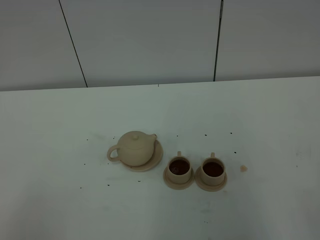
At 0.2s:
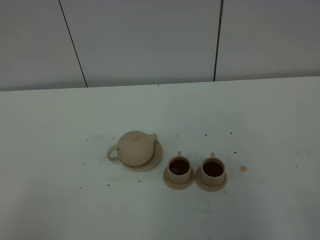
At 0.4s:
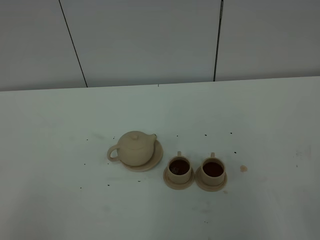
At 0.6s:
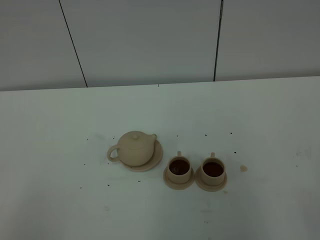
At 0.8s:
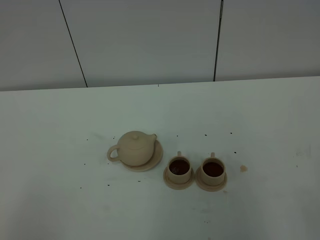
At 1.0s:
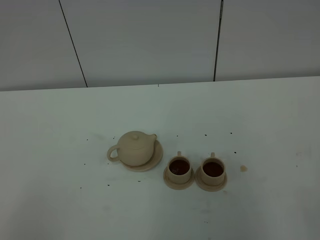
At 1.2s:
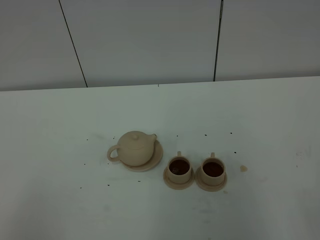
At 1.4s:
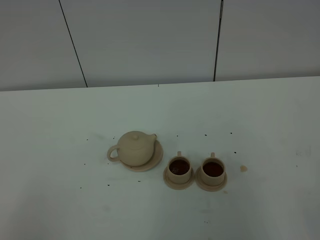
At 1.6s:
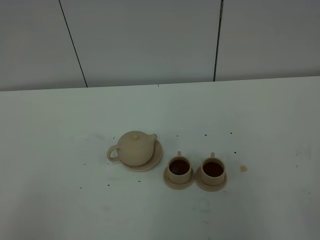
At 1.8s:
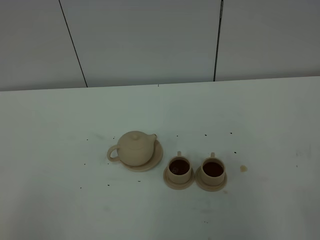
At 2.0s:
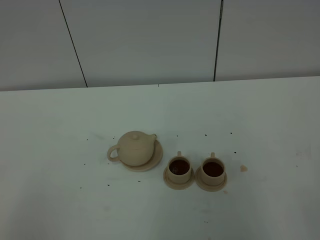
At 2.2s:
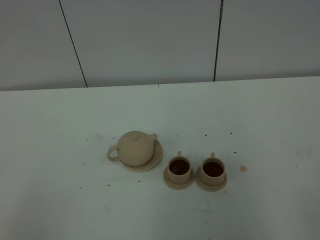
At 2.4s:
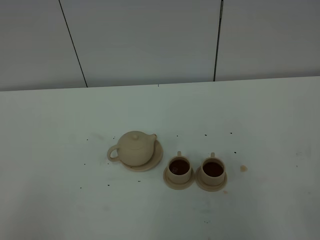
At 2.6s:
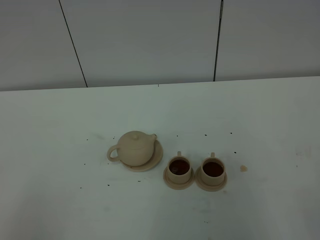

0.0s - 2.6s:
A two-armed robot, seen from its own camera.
Task of the whole recording: grasp the brown teapot and pour the tea into the two brown teacups one by one, put the brown teapot back in its original place.
0.0s - 2.6s: The two grippers keep their place.

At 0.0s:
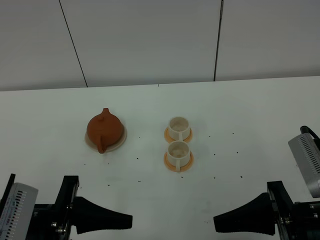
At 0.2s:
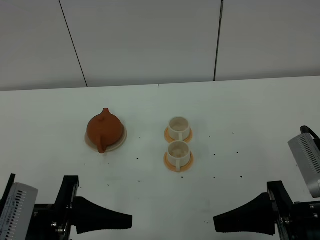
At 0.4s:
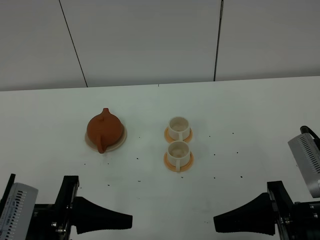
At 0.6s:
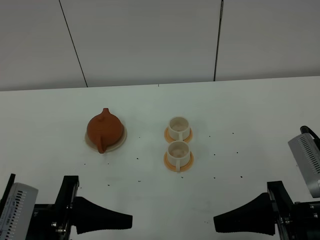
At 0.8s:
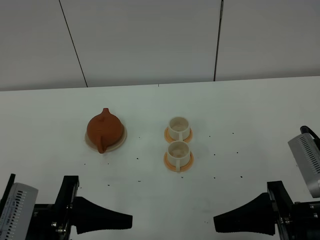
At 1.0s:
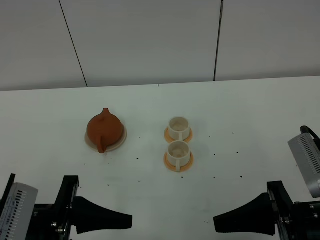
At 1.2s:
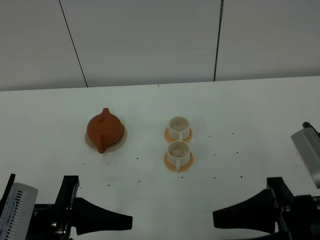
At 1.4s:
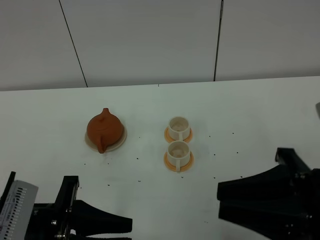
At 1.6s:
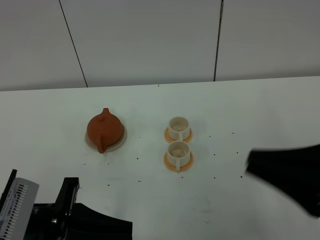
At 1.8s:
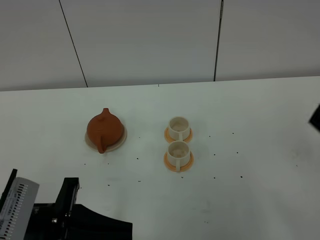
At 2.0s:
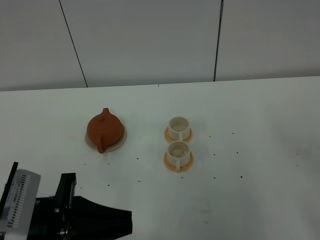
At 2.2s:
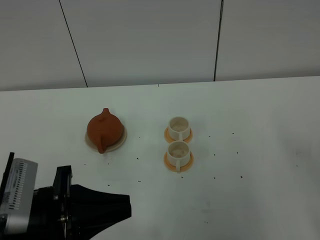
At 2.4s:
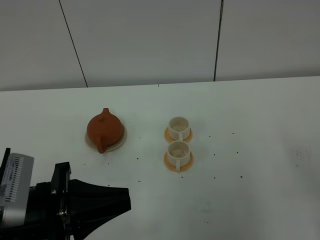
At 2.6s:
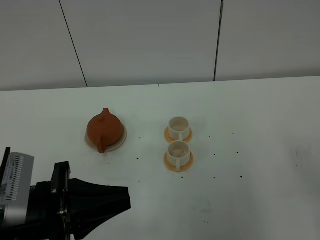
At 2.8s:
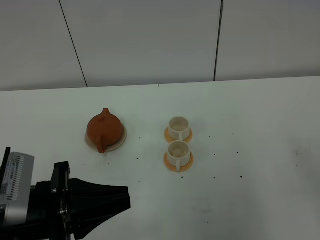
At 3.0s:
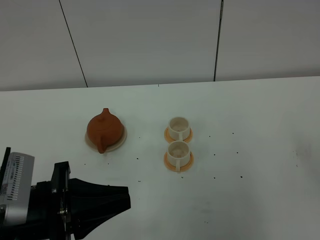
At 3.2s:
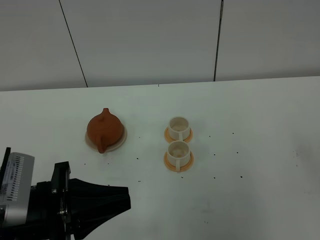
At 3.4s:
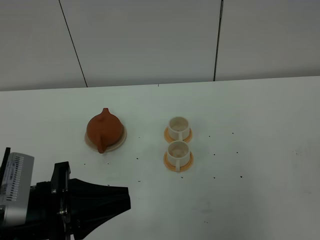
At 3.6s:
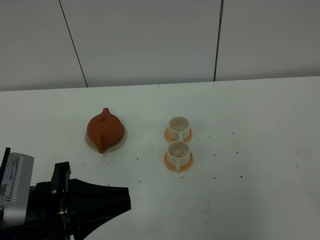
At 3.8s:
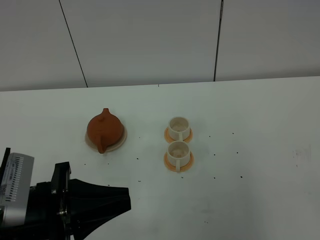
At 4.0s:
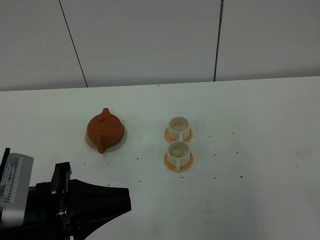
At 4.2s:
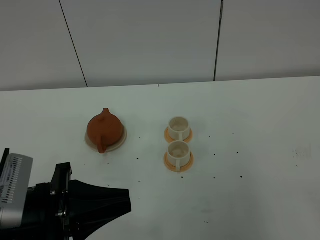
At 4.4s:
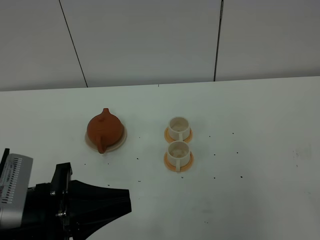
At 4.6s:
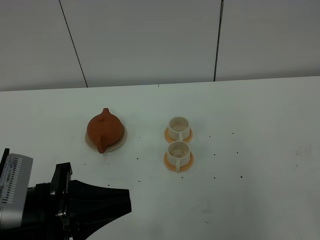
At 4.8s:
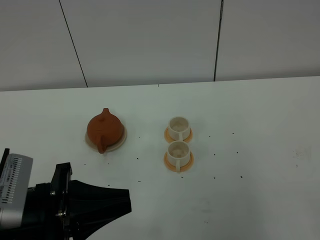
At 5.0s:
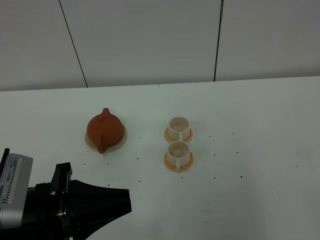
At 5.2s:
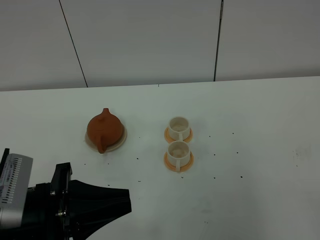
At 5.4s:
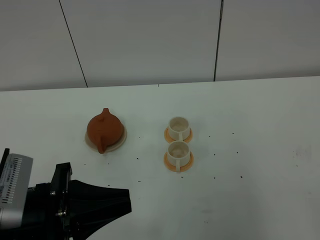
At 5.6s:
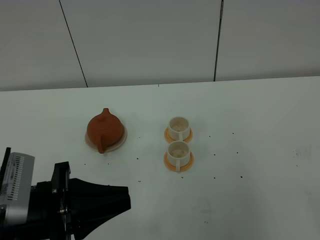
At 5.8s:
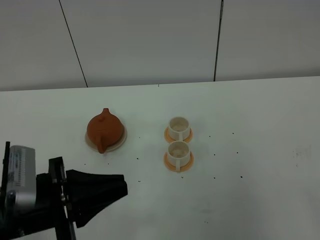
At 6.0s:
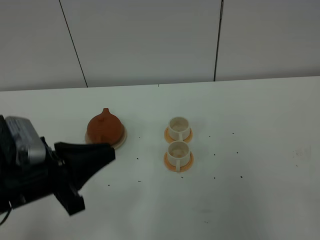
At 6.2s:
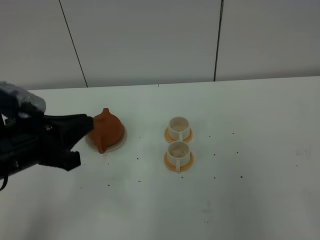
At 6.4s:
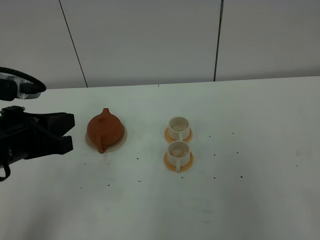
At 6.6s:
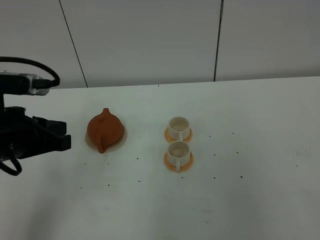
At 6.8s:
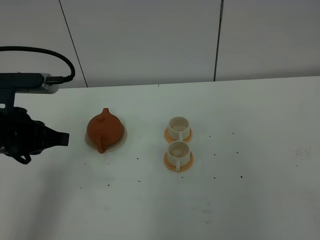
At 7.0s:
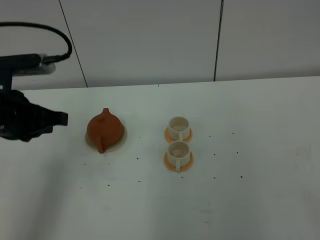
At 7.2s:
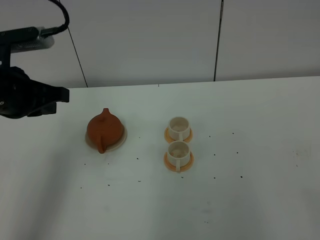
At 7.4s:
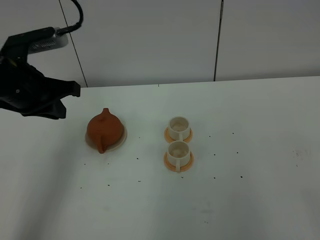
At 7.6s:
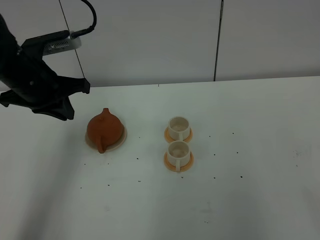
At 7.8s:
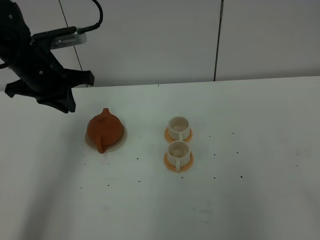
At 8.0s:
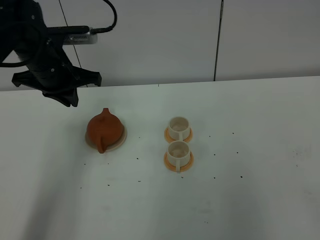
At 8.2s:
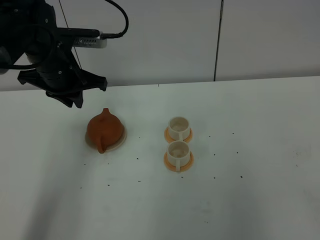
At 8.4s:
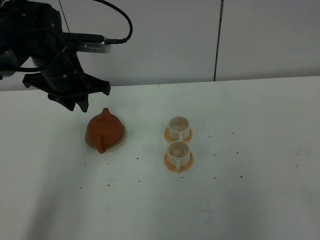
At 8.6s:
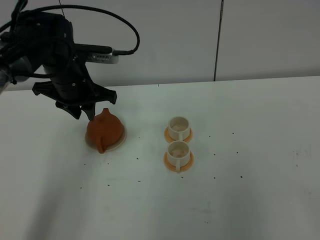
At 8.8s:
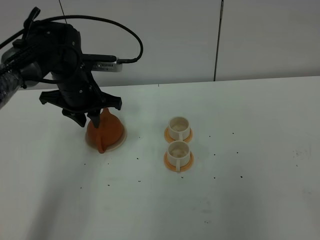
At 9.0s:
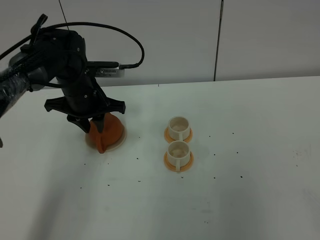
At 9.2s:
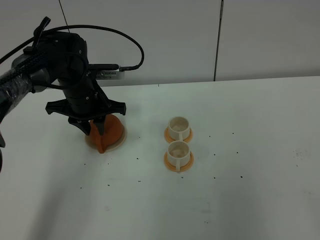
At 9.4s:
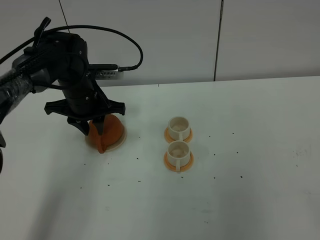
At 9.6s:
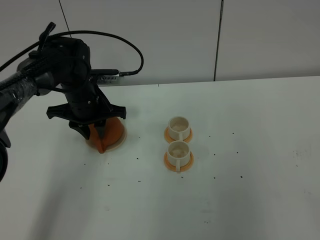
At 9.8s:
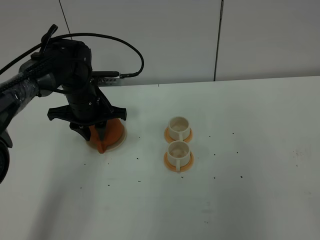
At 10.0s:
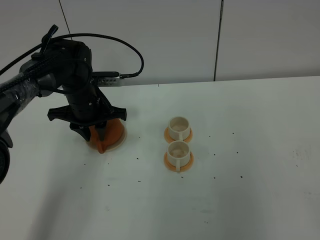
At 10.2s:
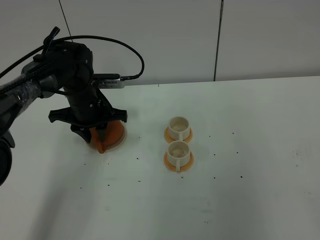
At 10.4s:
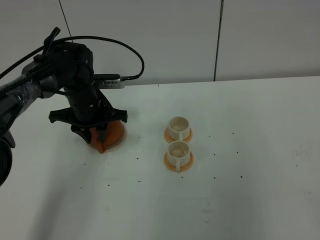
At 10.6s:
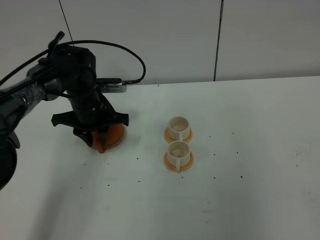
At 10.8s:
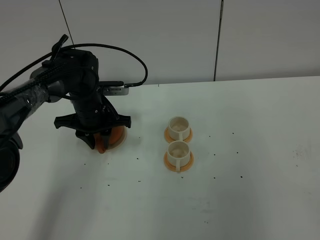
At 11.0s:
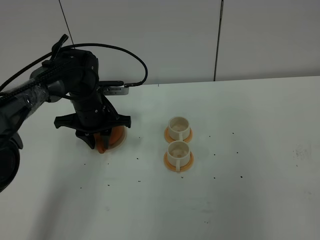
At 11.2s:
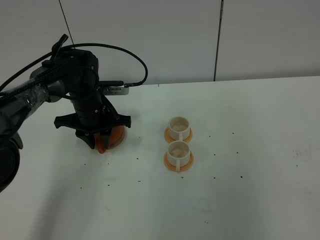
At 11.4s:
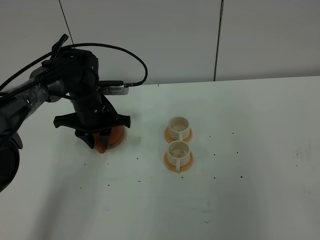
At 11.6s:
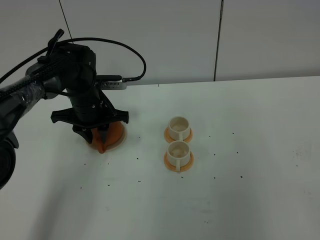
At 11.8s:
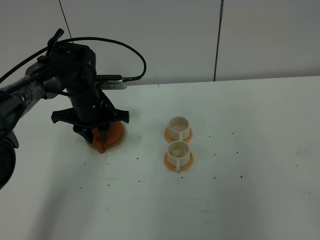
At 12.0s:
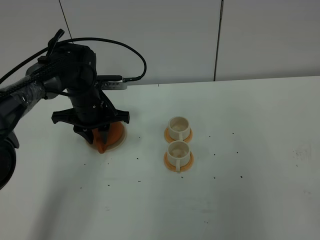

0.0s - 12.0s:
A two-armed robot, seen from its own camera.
Task of the whole recording: grasp the brown teapot and pour the tea into the two white teacups one by one, put the brown teapot back in its original place.
0.0s - 1.6s: The left gripper closes. The right gripper travels upward by approximately 10 cm, and closes up.
1.6s - 3.0s: The right gripper goes about 10 cm to the right and backward.
4.4s - 6.0s: The left gripper changes place by about 5 cm.
6.0s - 7.6s: The left gripper moves forward, about 20 cm.
7.6s - 9.0s: The left gripper shifts some 10 cm downward, forward and to the right, and opens up.
9.0s - 12.0s: The grippers make only small movements.

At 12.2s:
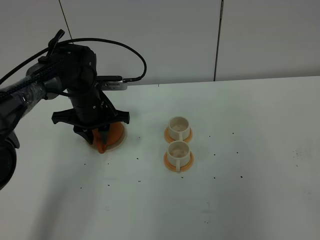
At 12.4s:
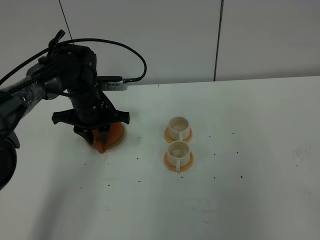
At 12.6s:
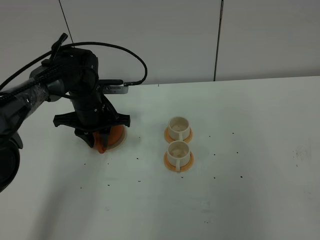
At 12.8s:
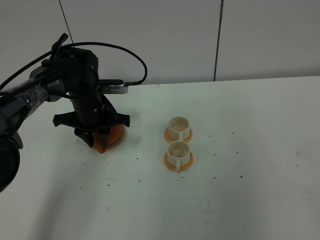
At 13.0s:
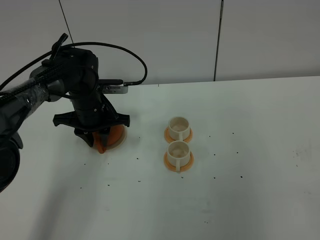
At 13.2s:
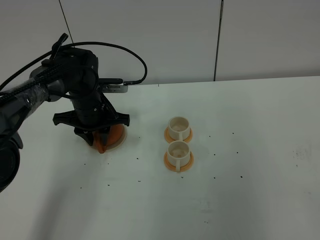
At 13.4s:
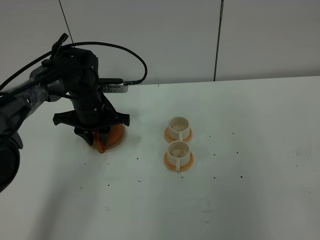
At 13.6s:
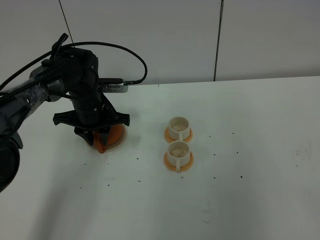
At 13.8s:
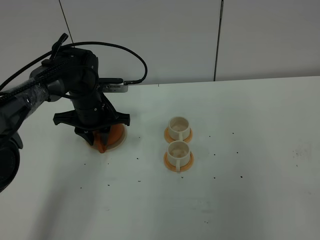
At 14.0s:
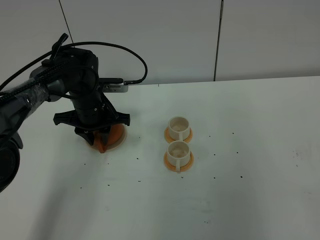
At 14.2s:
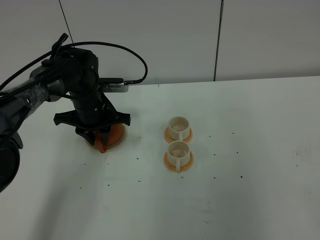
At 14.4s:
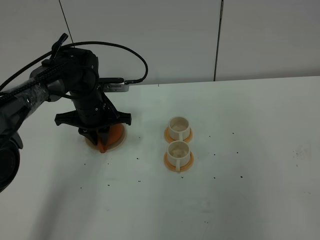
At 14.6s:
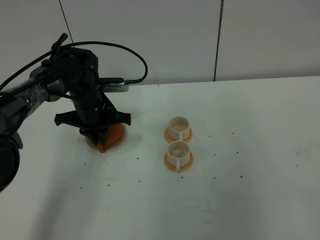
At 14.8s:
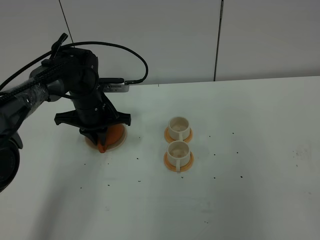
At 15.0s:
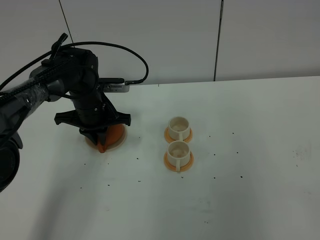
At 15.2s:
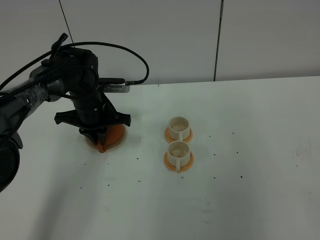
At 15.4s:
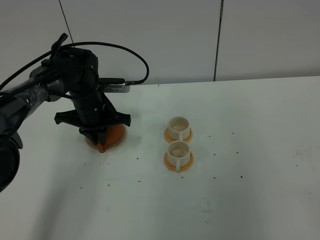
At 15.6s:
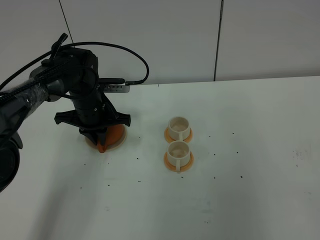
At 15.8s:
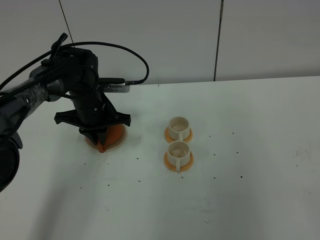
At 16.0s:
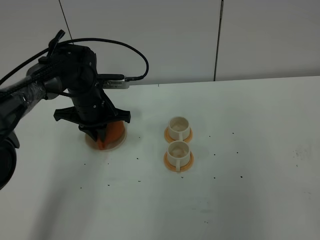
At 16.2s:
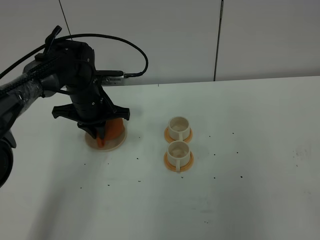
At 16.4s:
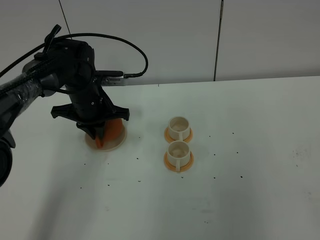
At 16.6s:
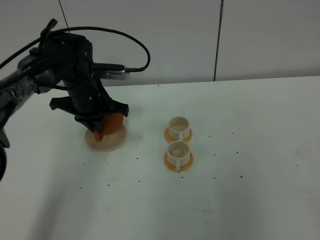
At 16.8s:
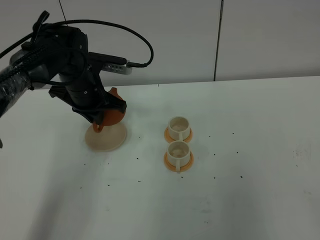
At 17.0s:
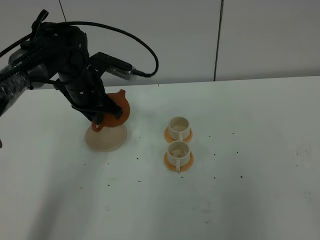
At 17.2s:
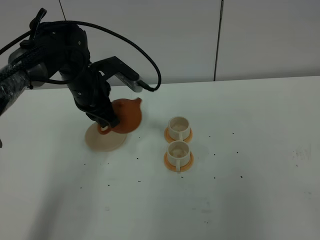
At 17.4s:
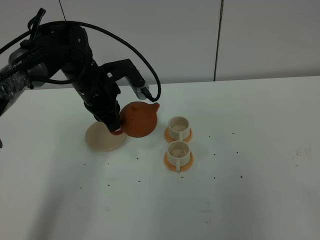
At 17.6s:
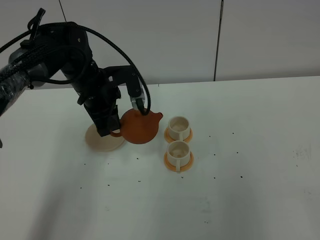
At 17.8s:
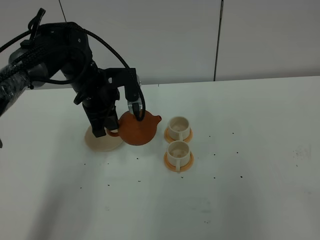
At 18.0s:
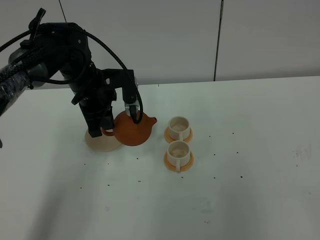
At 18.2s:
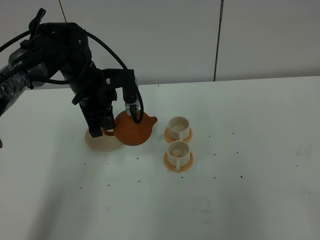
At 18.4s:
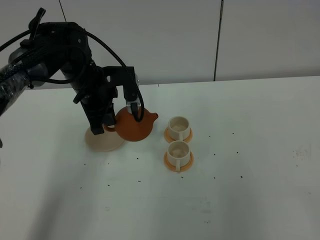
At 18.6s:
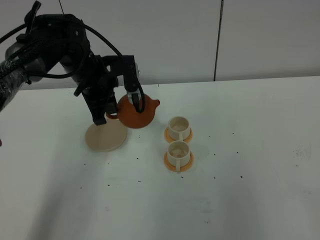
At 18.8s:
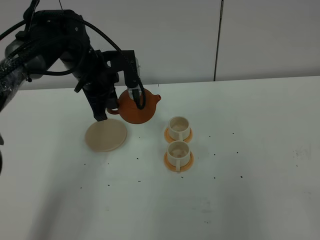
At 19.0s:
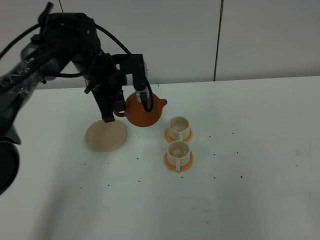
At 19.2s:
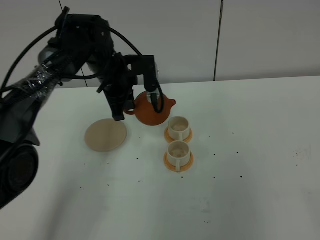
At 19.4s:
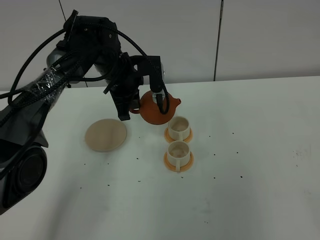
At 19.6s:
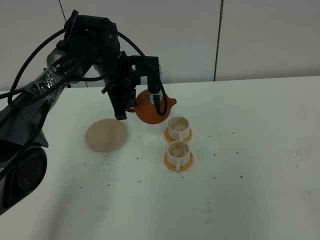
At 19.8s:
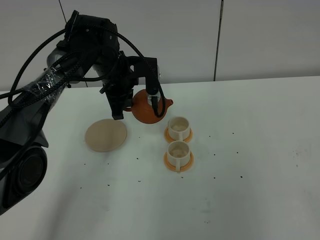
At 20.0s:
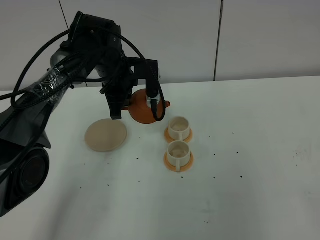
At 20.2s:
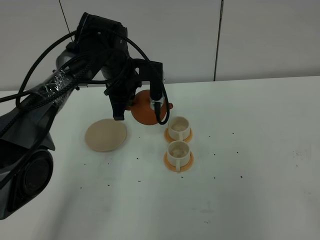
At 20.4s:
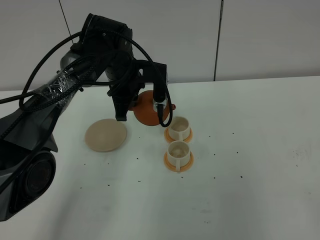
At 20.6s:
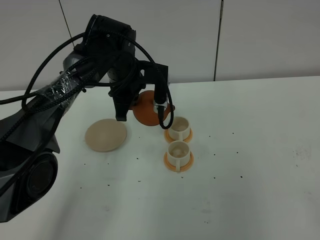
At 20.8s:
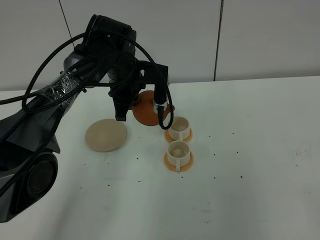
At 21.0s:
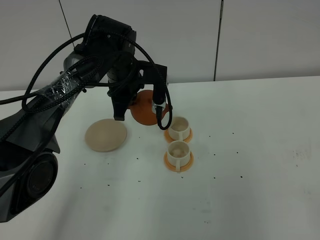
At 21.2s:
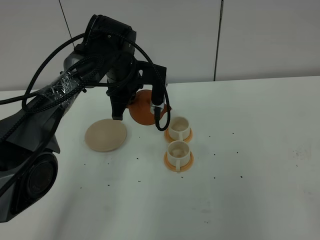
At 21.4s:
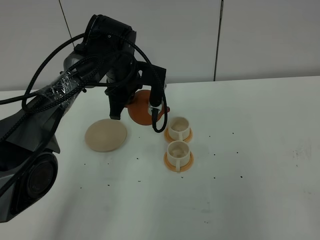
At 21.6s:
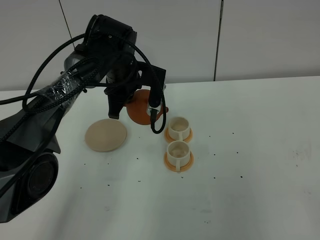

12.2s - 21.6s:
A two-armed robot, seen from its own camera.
Task of the whole recording: grasp the brown teapot and pour the tea into the two white teacups one by one, put the brown teapot back in its original place.
Step, 12.2s - 16.0s: Pick up the teapot with the left gripper.
12.2s - 13.8s: Both grippers stay about where they are.
15.4s - 17.0s: The left gripper moves upward, roughly 5 cm.
18.4s - 20.0s: The left gripper moves roughly 5 cm.
20.0s - 21.6s: There are only small adjustments of the grippers.
